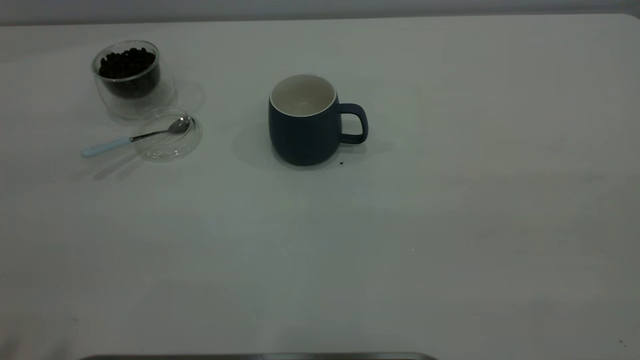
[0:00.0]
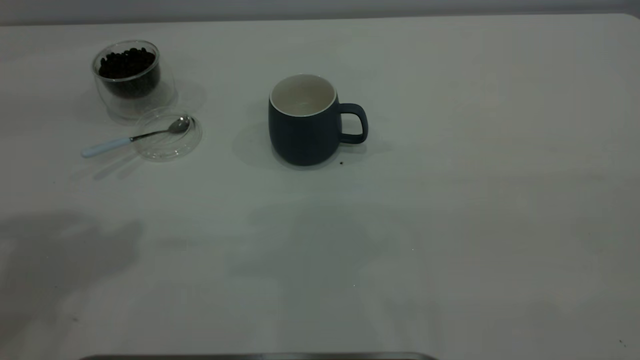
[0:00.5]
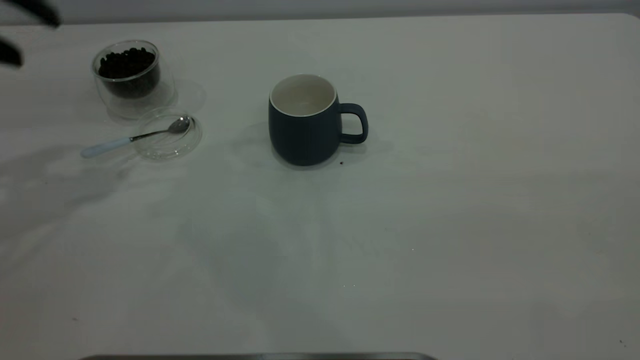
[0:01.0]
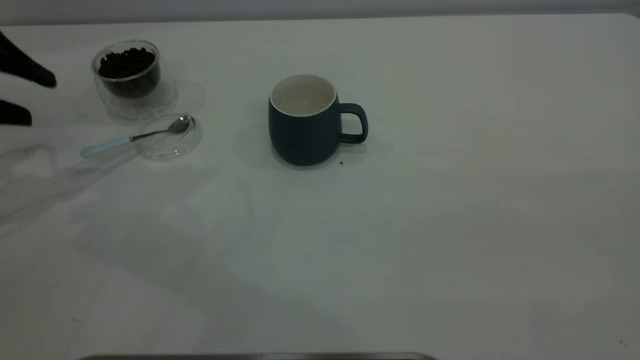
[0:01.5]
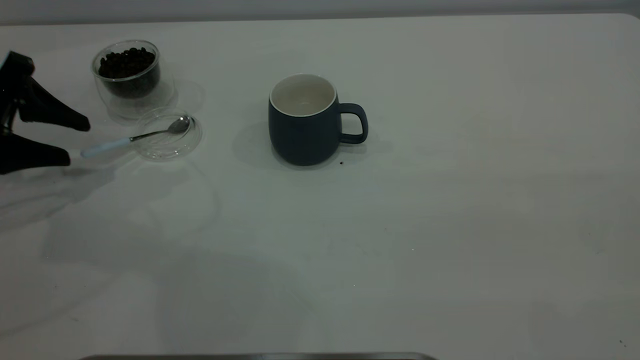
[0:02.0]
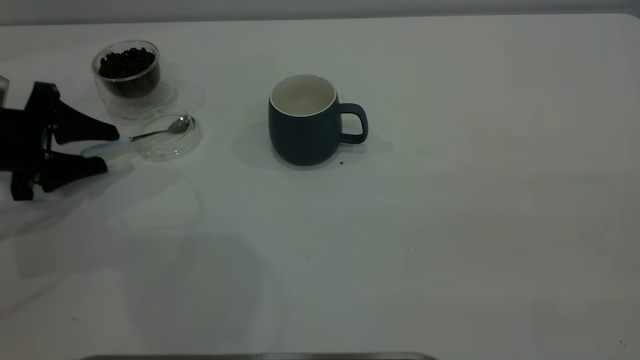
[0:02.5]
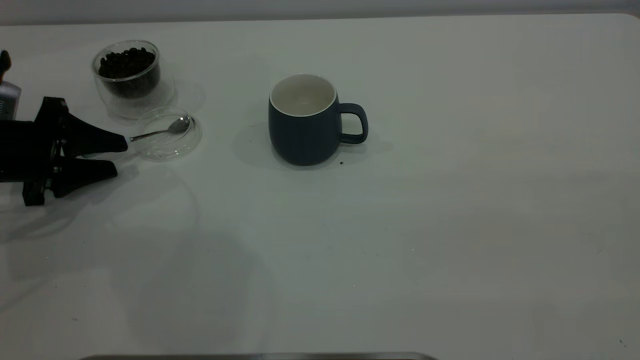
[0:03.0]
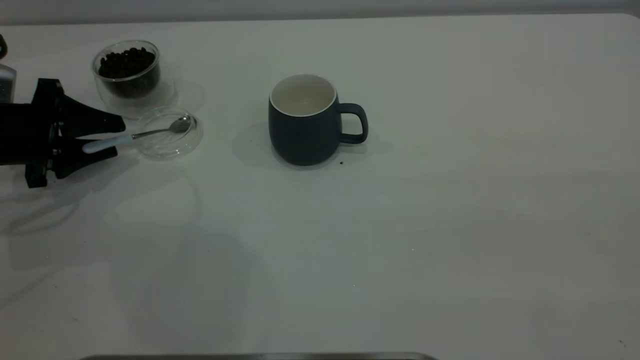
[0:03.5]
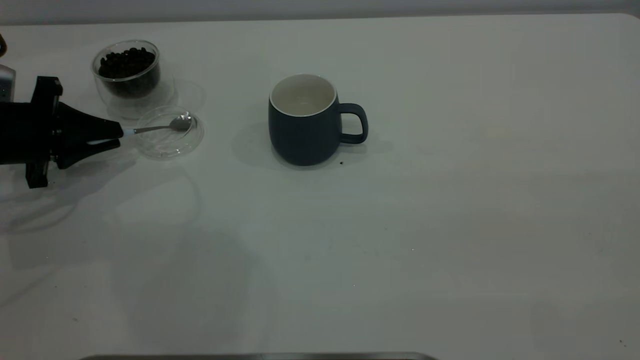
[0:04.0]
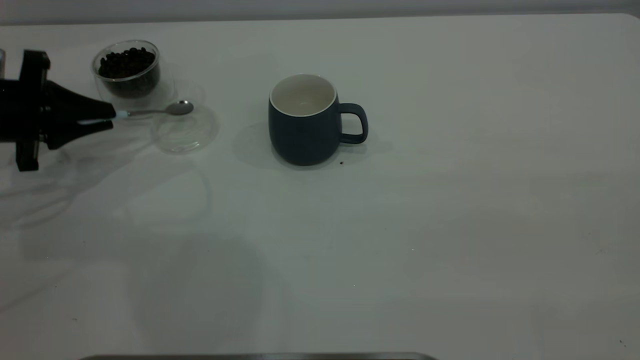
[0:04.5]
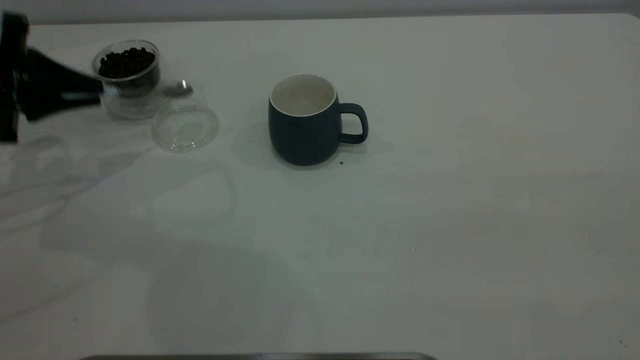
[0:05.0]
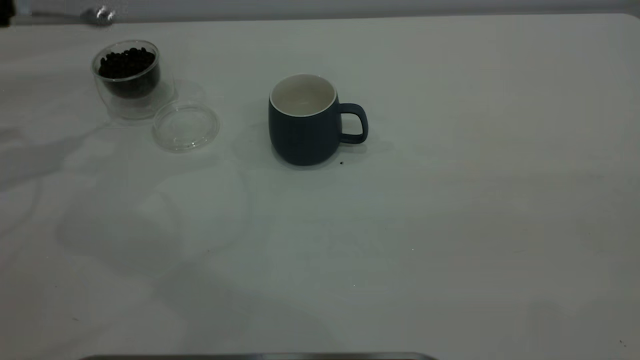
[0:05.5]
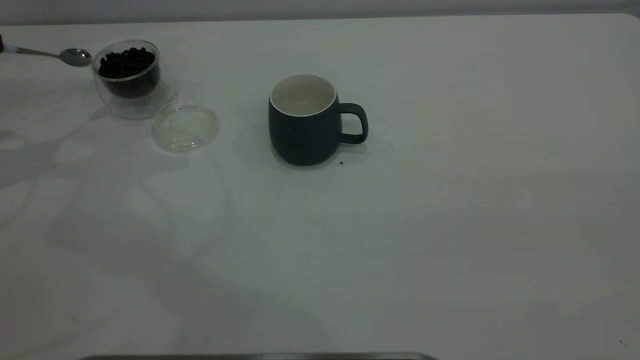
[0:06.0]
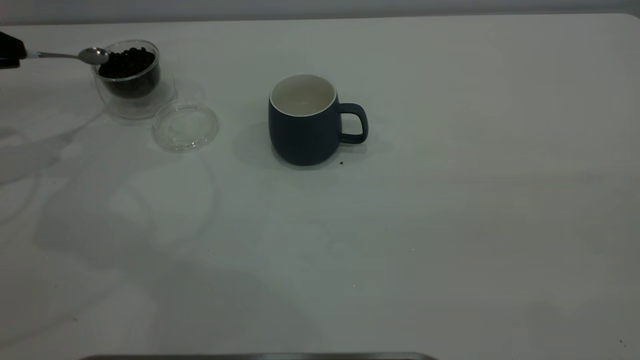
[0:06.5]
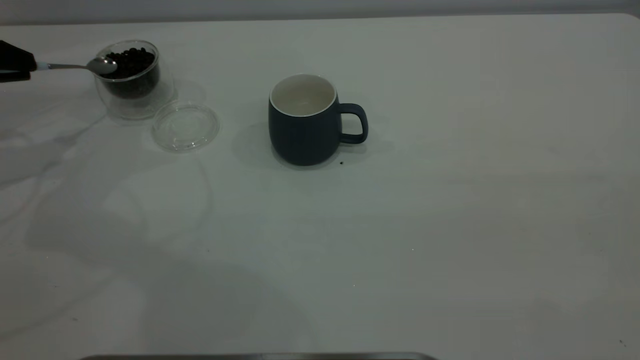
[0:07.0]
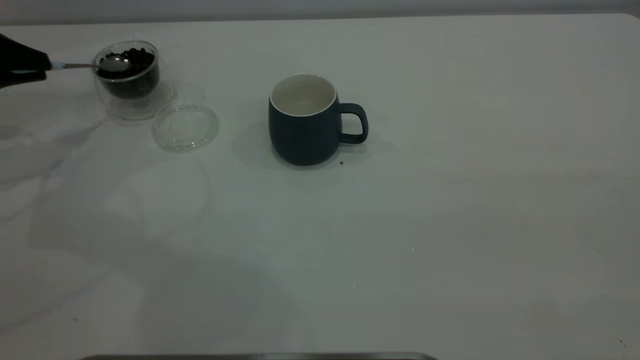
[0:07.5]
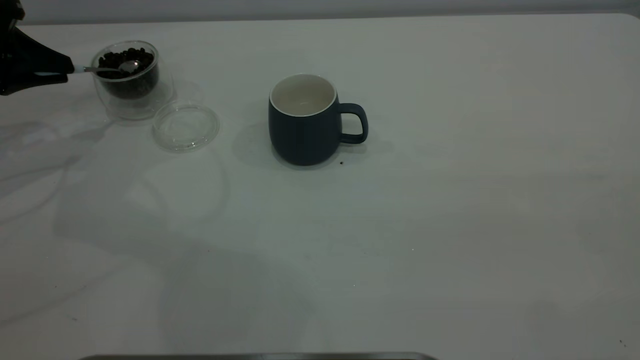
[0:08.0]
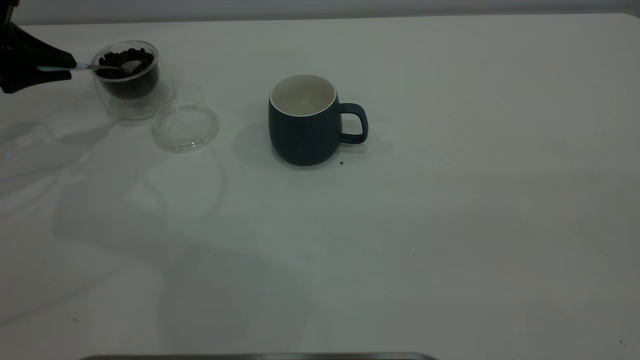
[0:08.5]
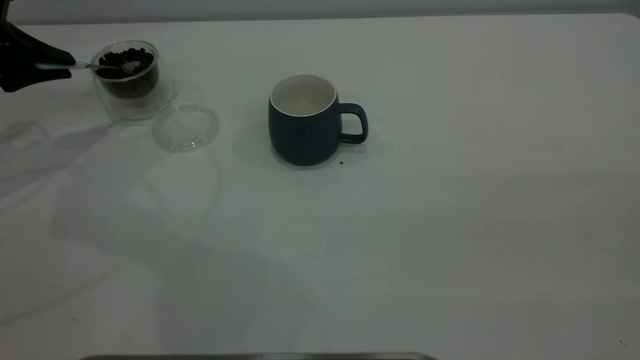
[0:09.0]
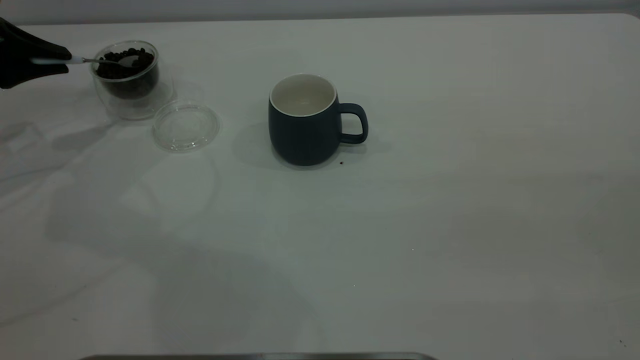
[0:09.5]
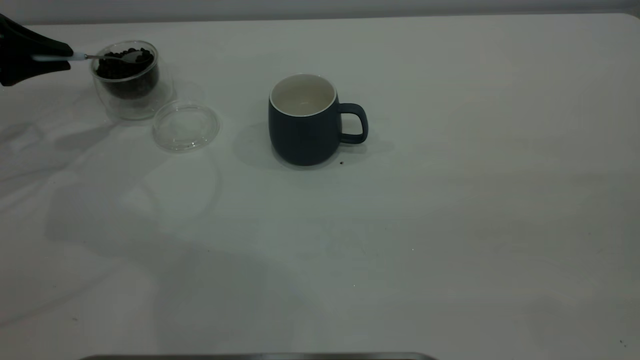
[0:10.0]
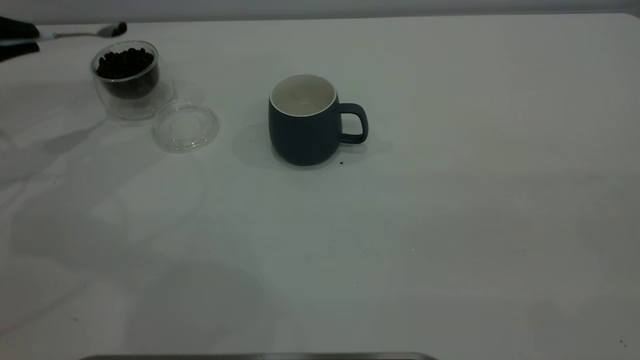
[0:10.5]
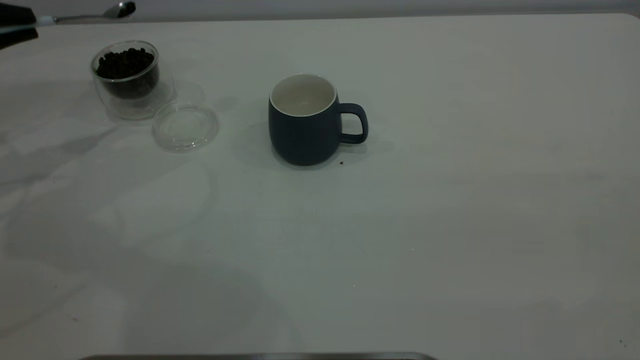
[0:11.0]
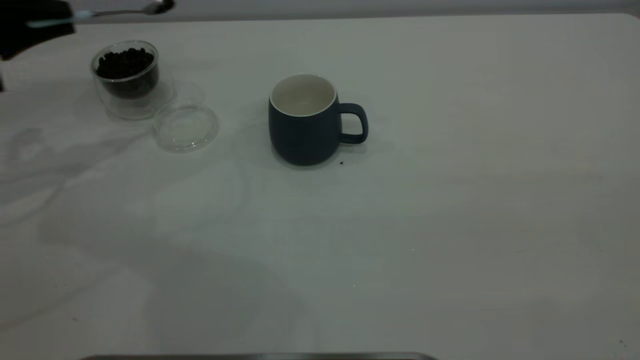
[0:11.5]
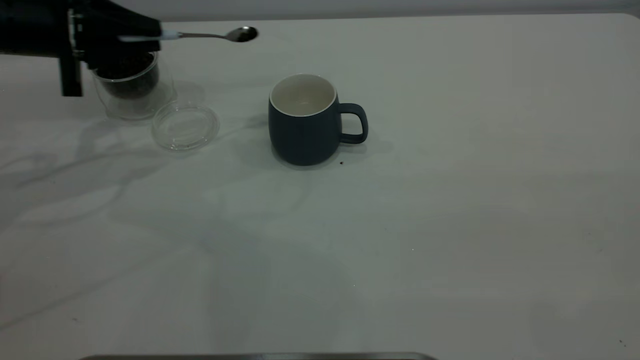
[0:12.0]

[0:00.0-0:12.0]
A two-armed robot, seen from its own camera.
Task of the whole recording: the right gripper place the grey cup in the center of the table, the left gripper take the blue spoon from the cup lid and scoop out the coffee beans from the coffee cup and put them into the grey cup, the left gripper put the spoon back into the cup lid.
Step, 0:00.0 to 0:05.0: Pick up the spoon.
0:00.0 to 0:02.0: The left gripper travels downward and forward by about 35 cm.
0:02.0 to 0:04.0: The left gripper goes approximately 5 cm downward, and closes up.
0:04.0 to 0:06.0: The left gripper is displaced upward and to the left by some 15 cm.
0:06.0 to 0:08.0: The left gripper is displaced downward by about 5 cm.
0:10.0 to 0:12.0: The left gripper travels to the right by about 10 cm.

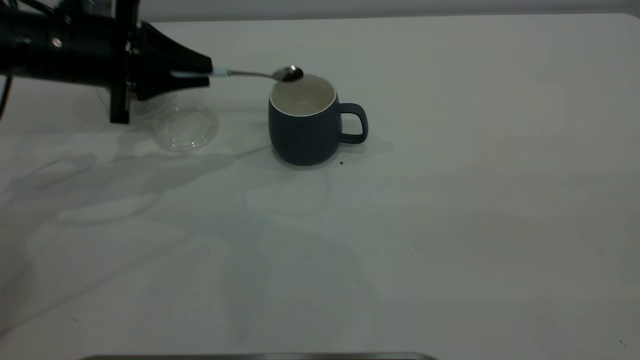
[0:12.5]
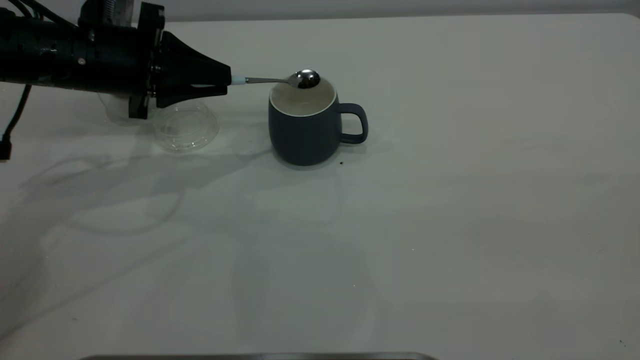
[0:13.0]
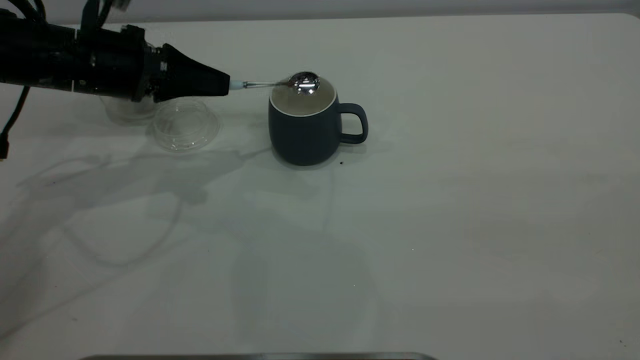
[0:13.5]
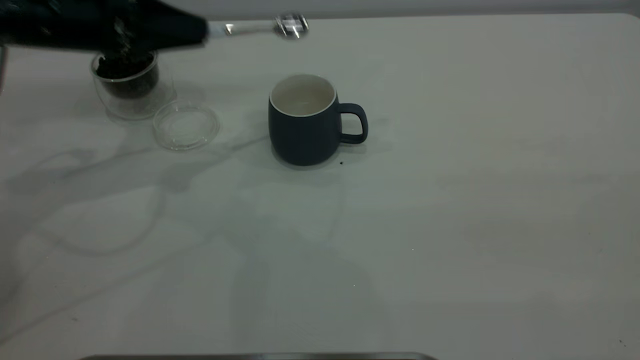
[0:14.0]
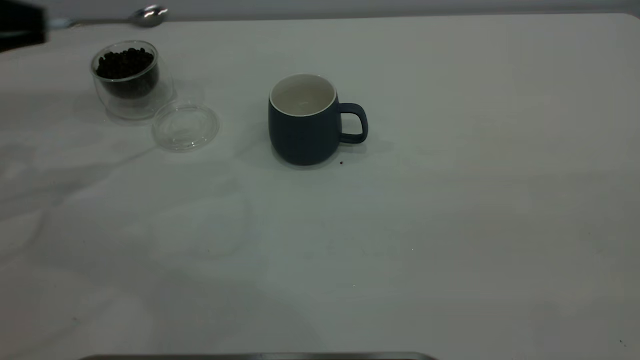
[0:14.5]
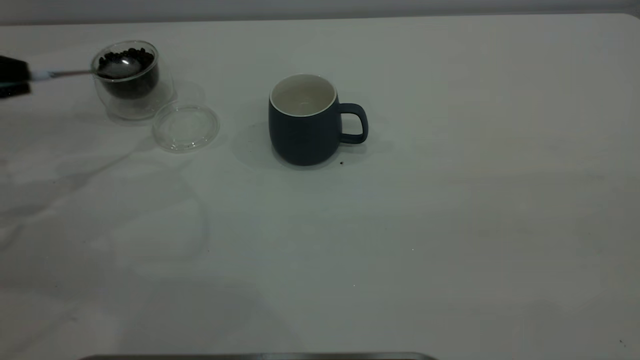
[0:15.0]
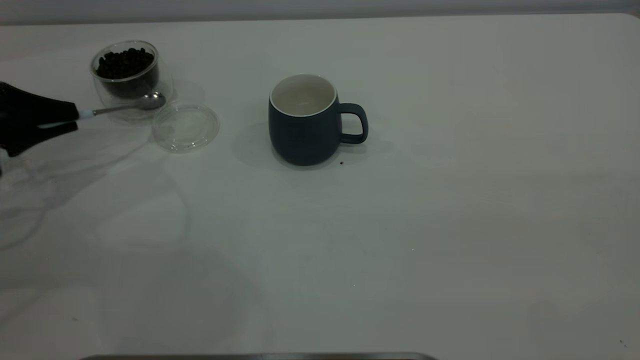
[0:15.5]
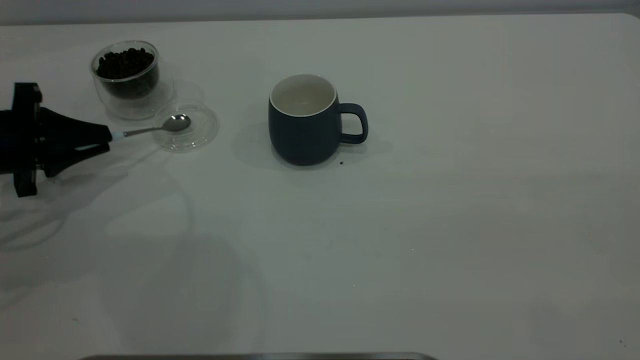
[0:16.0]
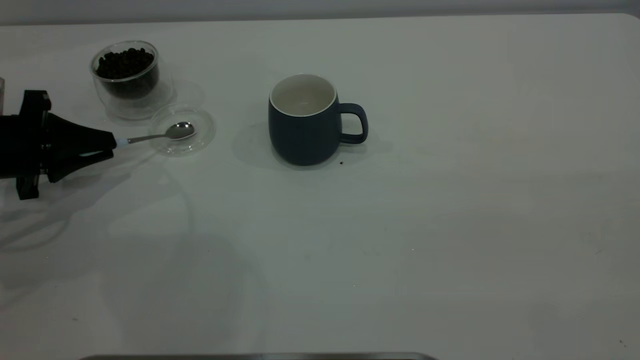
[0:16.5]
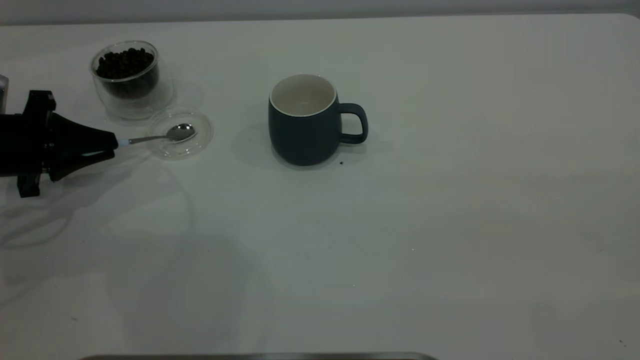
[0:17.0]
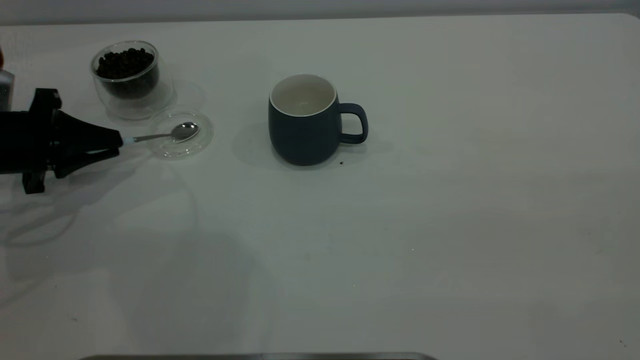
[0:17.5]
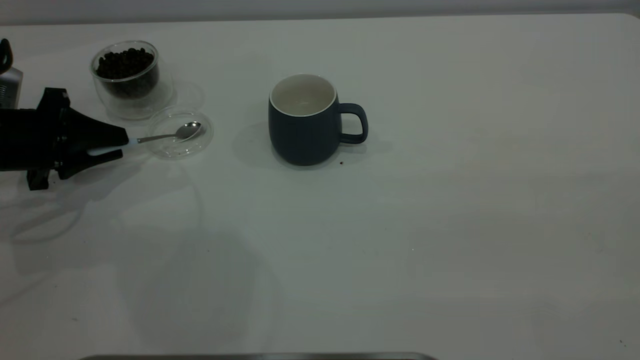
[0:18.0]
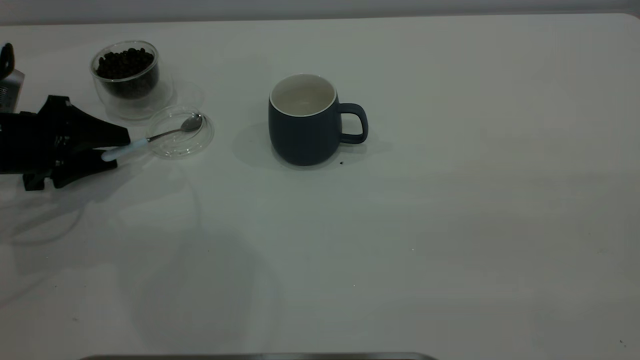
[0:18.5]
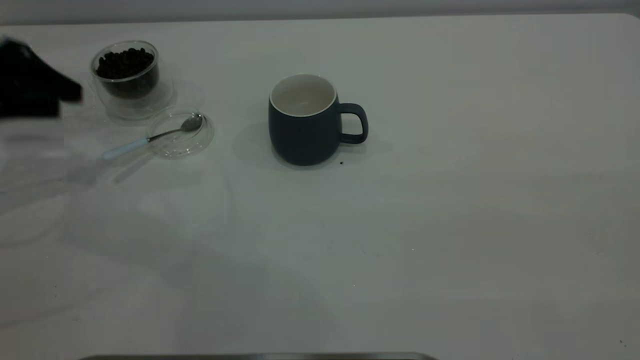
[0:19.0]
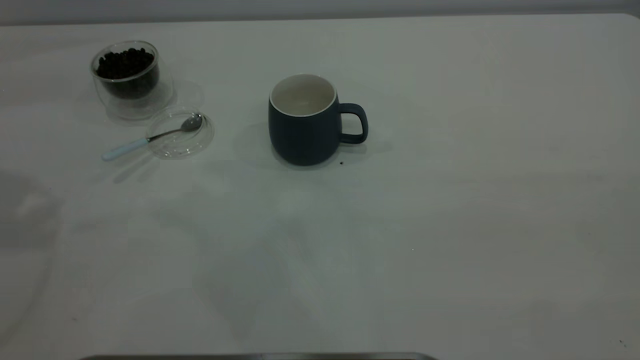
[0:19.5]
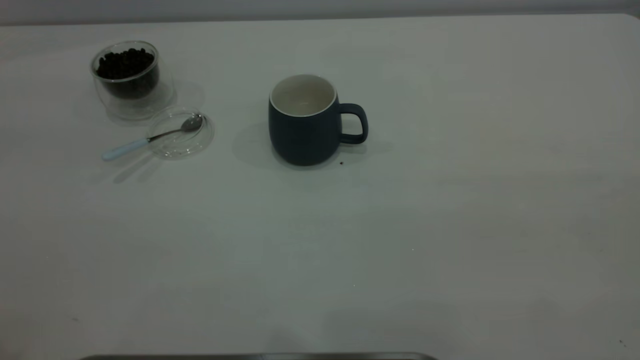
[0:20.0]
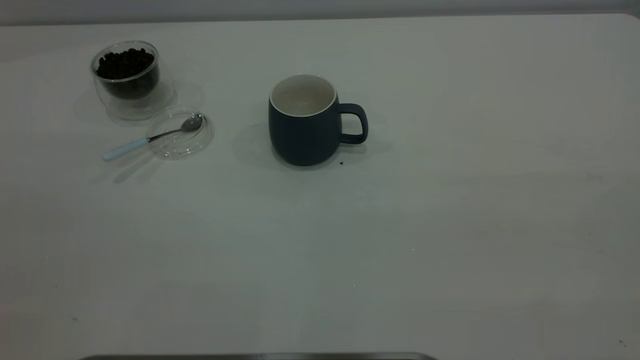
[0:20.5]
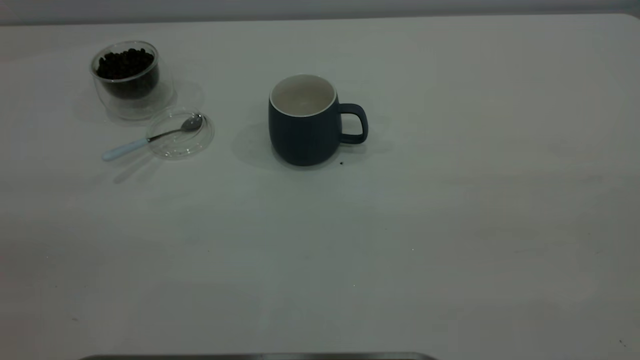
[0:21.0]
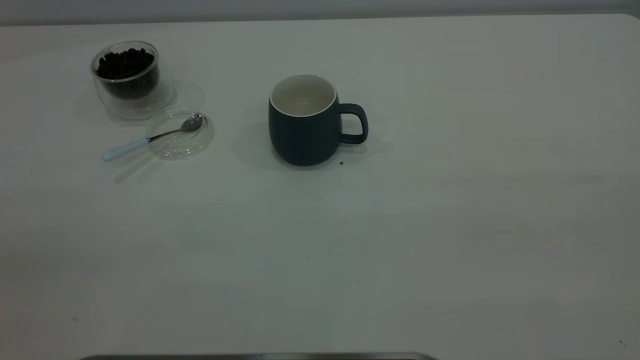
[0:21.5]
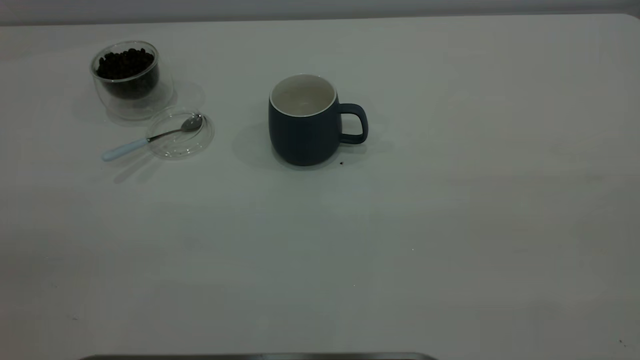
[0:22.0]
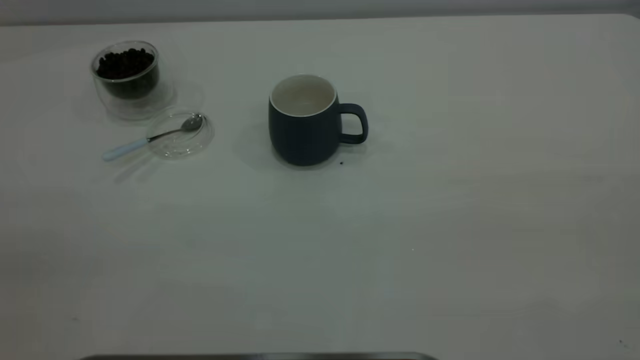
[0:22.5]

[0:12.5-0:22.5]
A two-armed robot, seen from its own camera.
Task of the whole recording: the right gripper place the grey cup in the center of the table, the left gripper take the blue spoon from the cup lid and scoop out the coffee beans from the coffee cup and put them into the grey cup, the left gripper put the spoon back into the cup lid.
Step, 0:14.0 to 0:19.0: Place the spoon back in its original place.
0:12.5 to 0:14.5: The left gripper goes about 15 cm to the left and upward.
0:14.5 to 0:16.5: The left gripper travels downward by roughly 15 cm.
0:16.5 to 0:18.5: The left gripper opens.
0:18.5 to 0:20.5: The left gripper heads upward and backward, covering roughly 40 cm.
